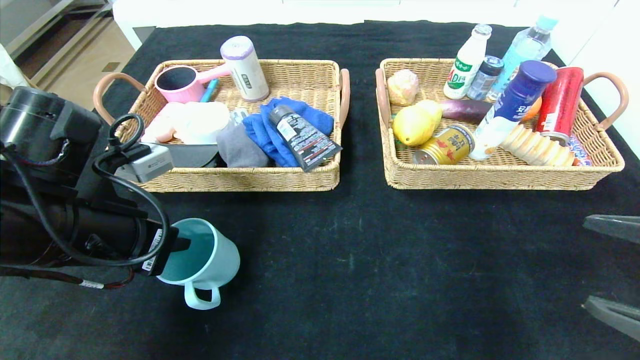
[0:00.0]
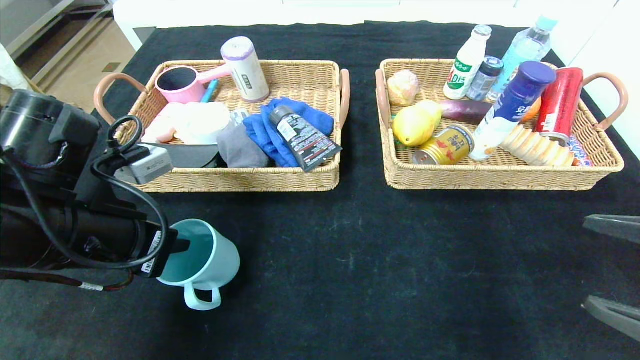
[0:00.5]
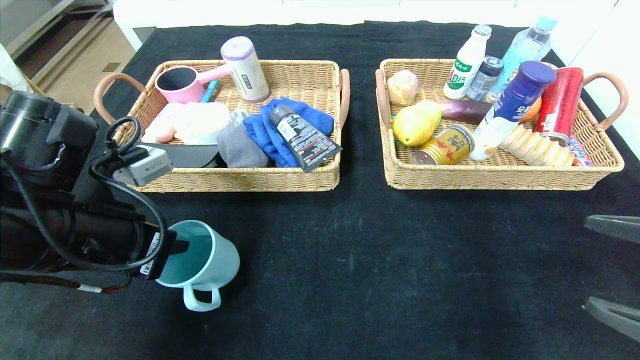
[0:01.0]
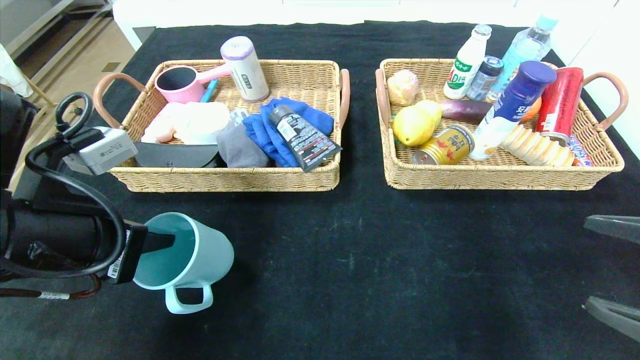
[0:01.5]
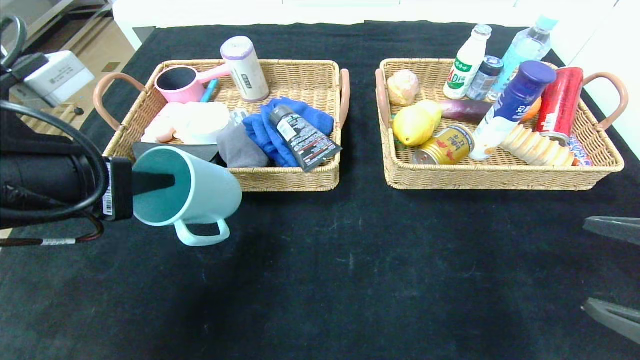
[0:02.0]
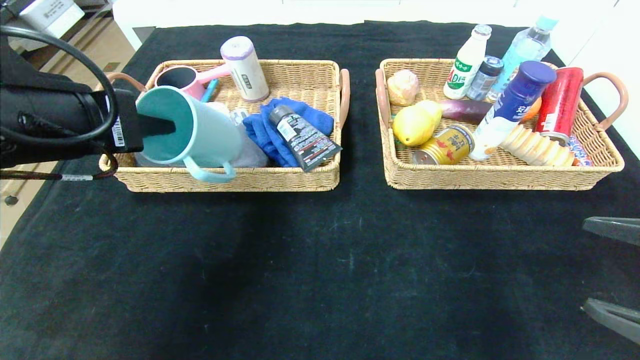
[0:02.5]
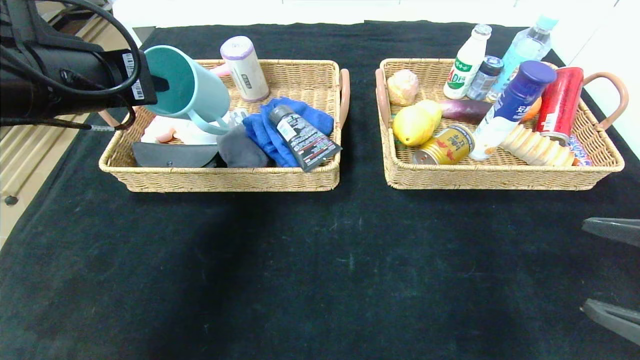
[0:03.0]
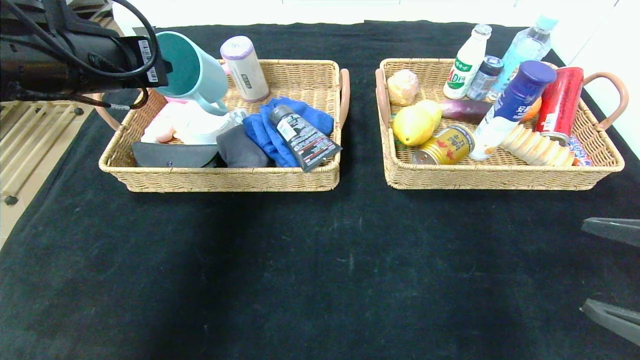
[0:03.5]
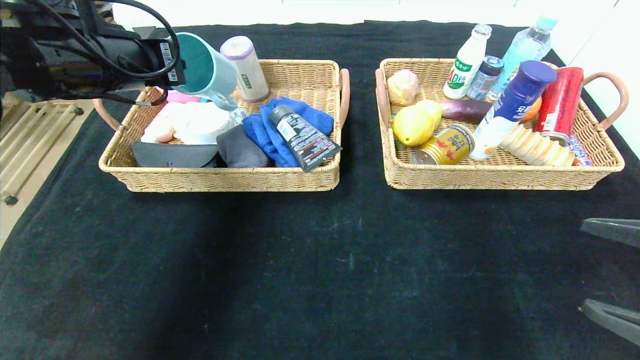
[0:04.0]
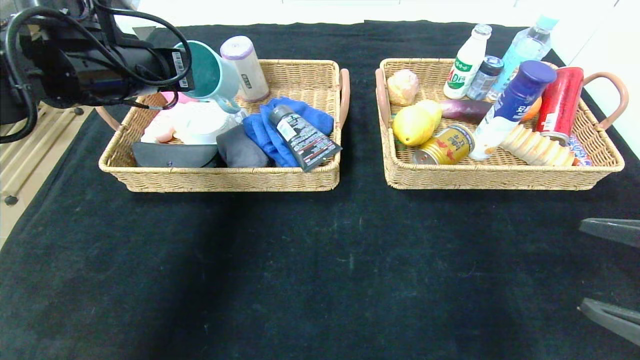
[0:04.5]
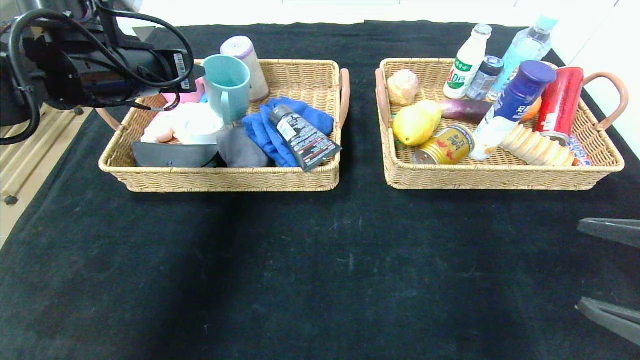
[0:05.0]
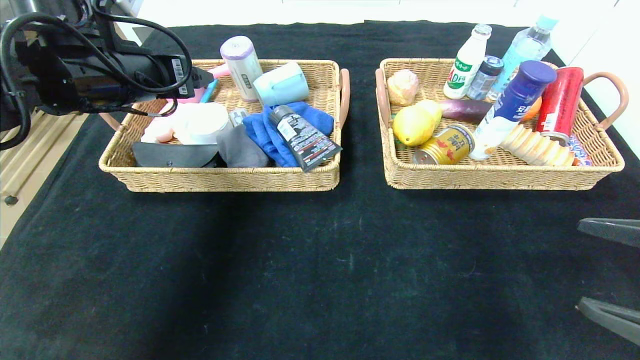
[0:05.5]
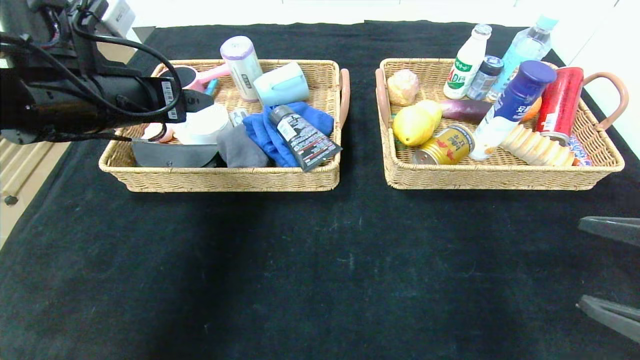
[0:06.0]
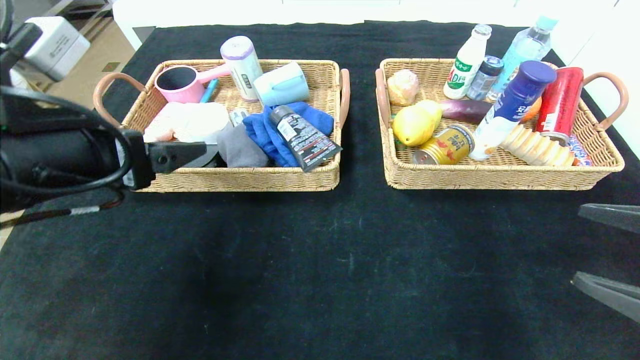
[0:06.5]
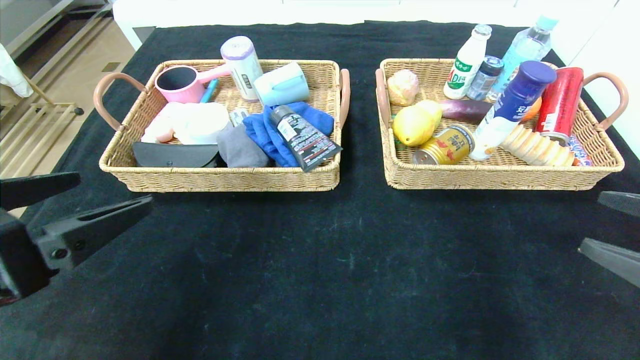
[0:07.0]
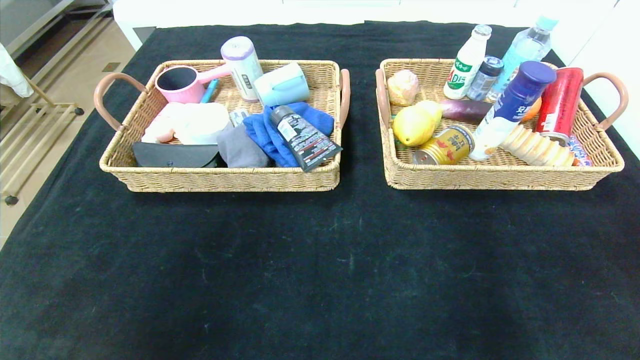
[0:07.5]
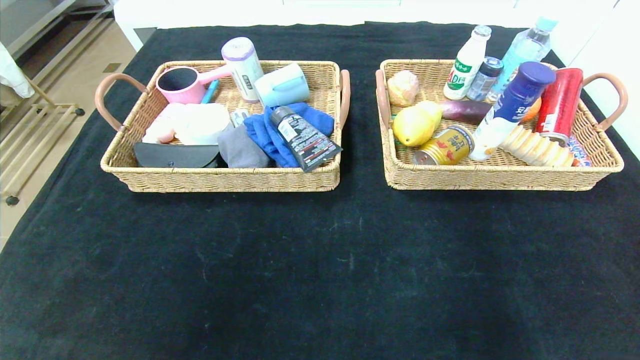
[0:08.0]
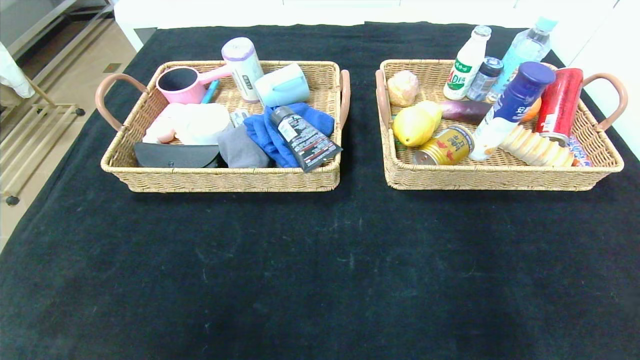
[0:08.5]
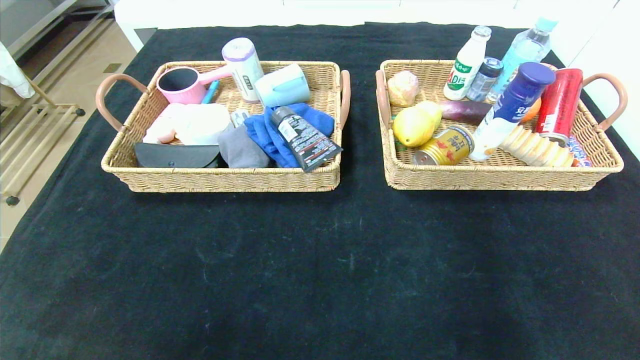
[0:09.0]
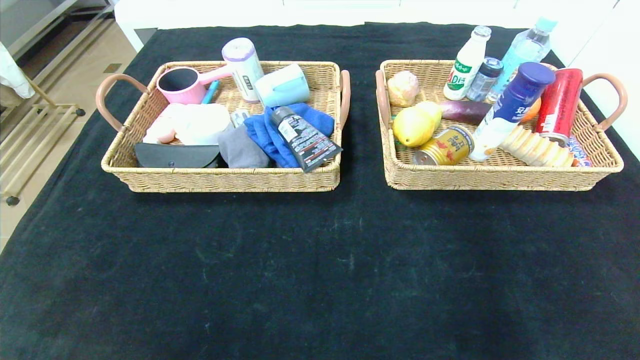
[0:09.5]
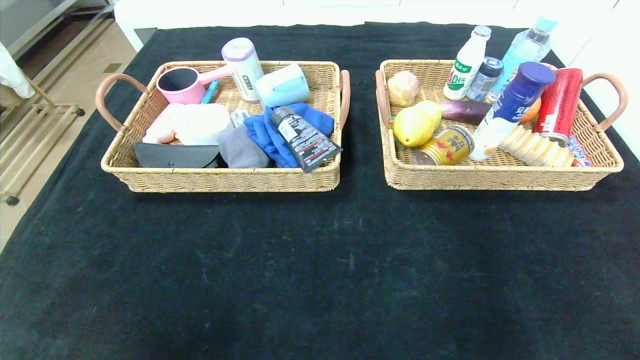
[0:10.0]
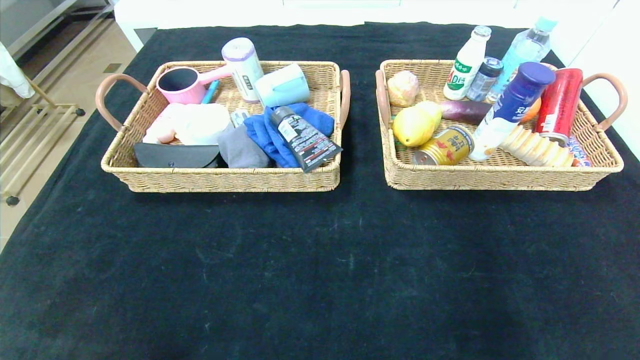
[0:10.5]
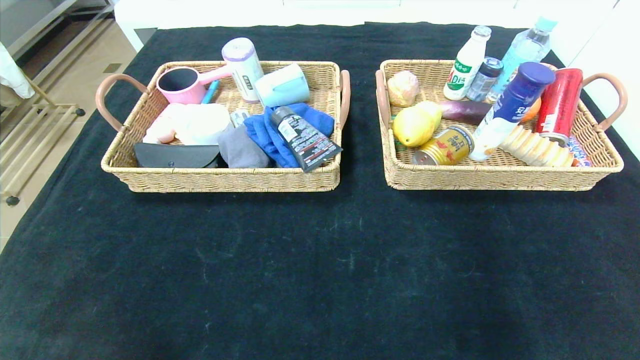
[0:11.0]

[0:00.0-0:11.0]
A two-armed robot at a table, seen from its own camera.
Step, 0:00.0 to 0:05.5: Grasp the blue cup and put it in the left basket.
0:00.0 to 0:02.0: The left gripper travels upward by about 5 cm.
0:02.0 to 0:03.5: The left gripper heads forward and upward, covering roughly 15 cm.
0:03.5 to 0:05.5: The left gripper opens up.
0:05.5 to 0:07.5: The right gripper goes approximately 10 cm backward. Meanwhile the left gripper goes roughly 35 cm backward.
0:07.5 to 0:09.0: Both grippers travel together backward, roughly 15 cm.
